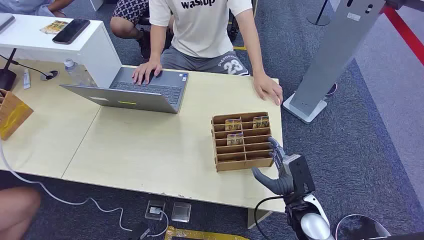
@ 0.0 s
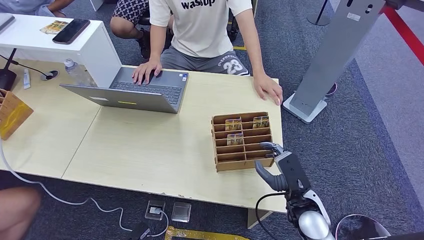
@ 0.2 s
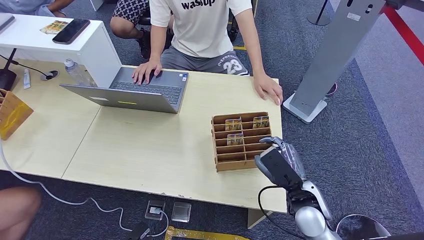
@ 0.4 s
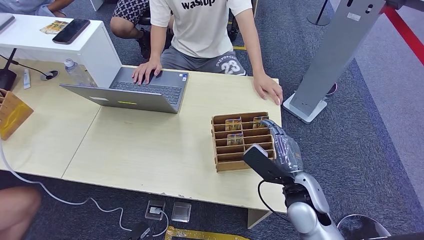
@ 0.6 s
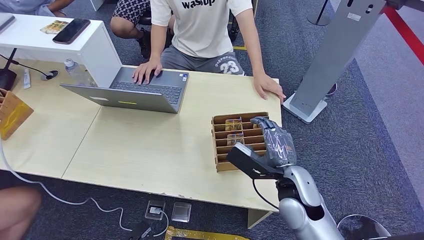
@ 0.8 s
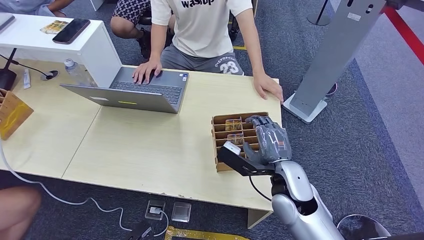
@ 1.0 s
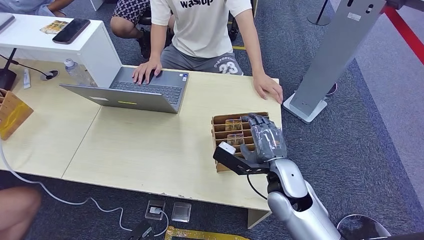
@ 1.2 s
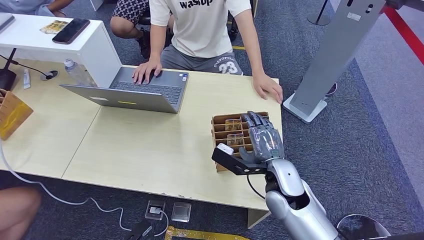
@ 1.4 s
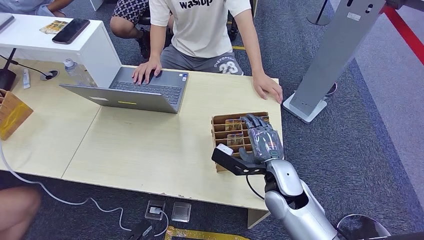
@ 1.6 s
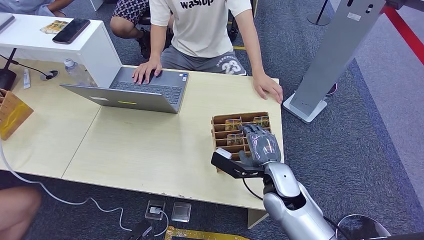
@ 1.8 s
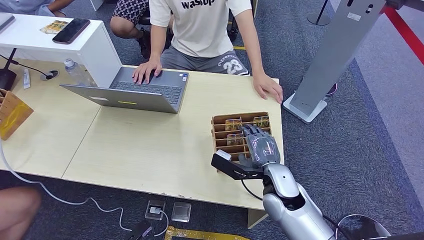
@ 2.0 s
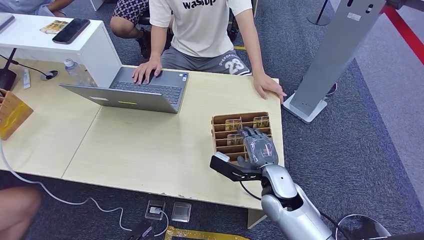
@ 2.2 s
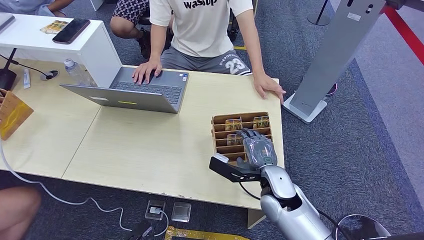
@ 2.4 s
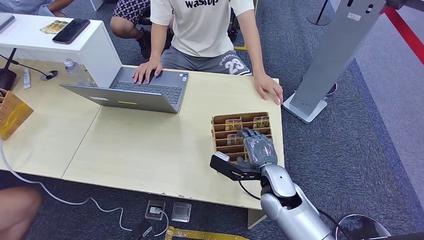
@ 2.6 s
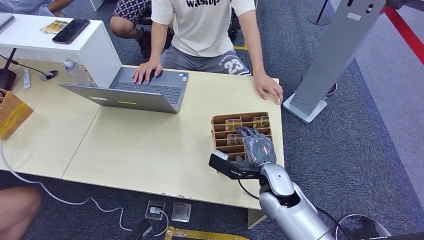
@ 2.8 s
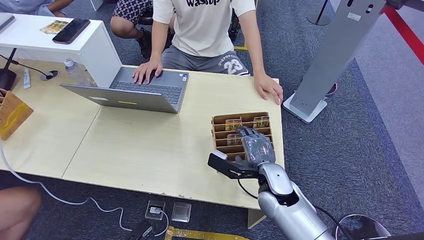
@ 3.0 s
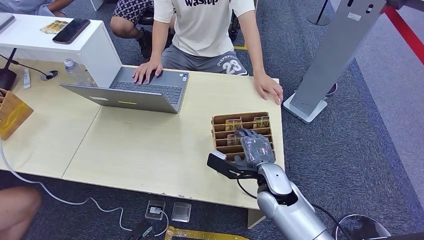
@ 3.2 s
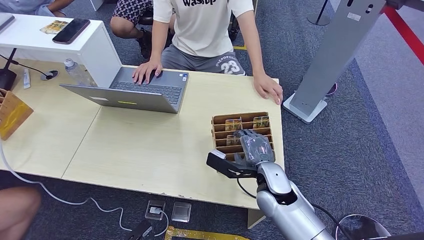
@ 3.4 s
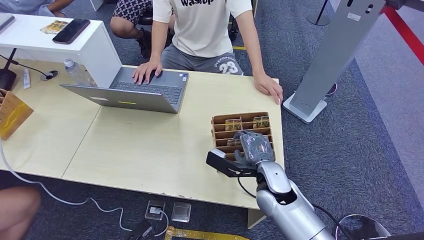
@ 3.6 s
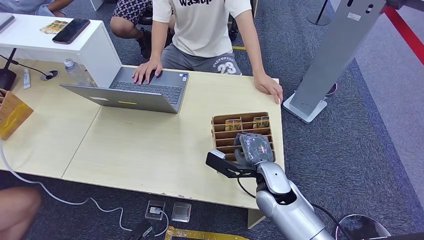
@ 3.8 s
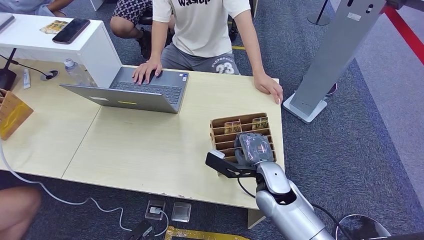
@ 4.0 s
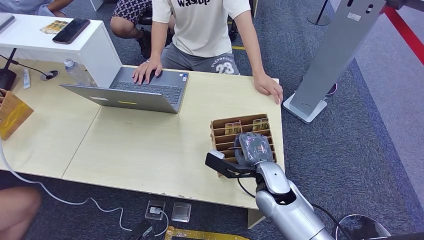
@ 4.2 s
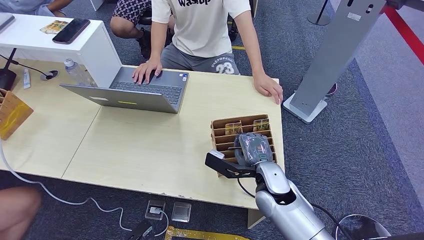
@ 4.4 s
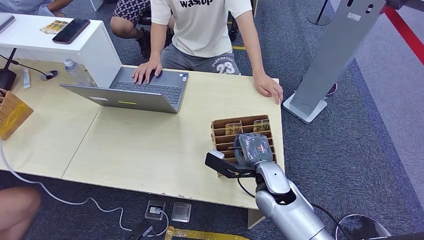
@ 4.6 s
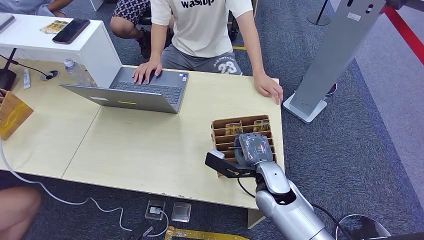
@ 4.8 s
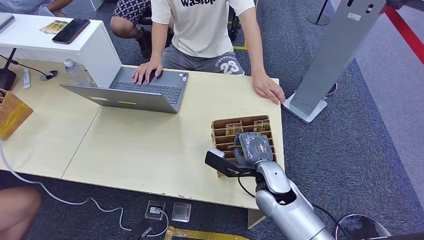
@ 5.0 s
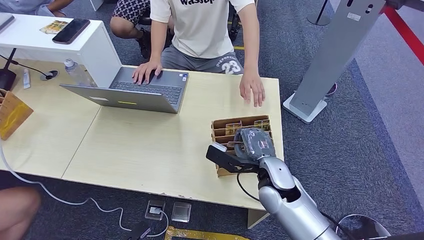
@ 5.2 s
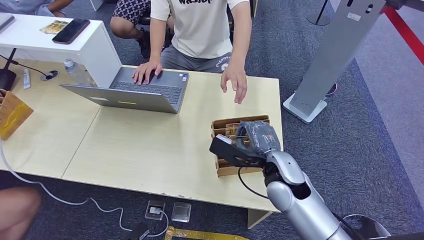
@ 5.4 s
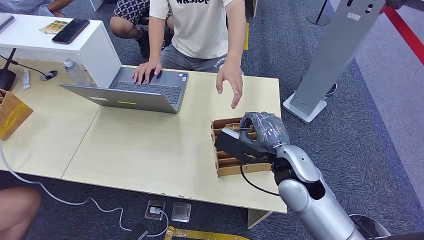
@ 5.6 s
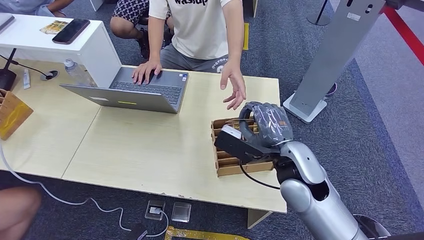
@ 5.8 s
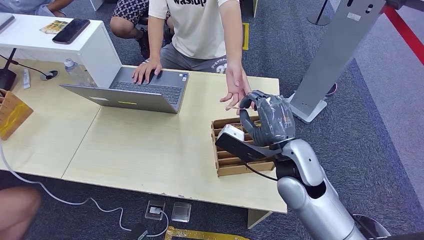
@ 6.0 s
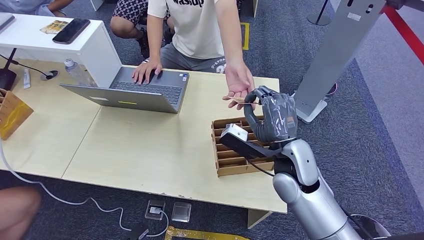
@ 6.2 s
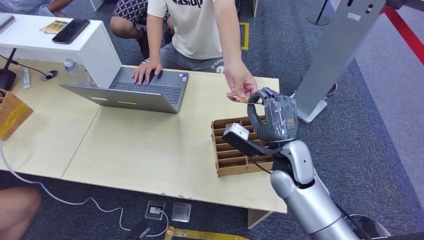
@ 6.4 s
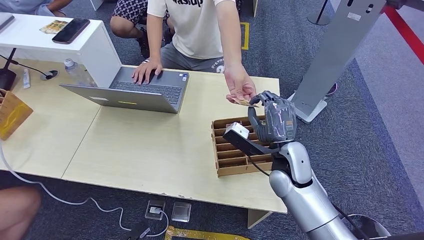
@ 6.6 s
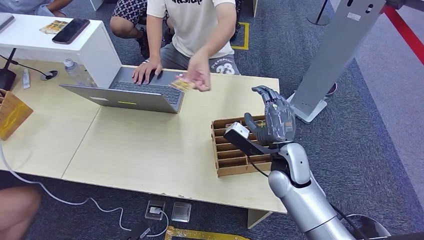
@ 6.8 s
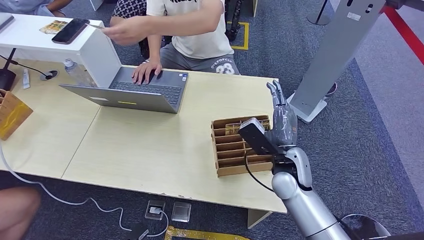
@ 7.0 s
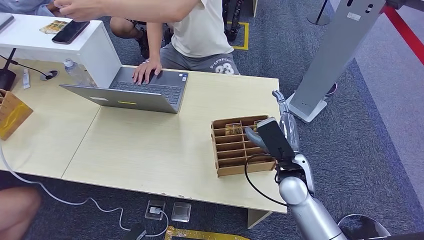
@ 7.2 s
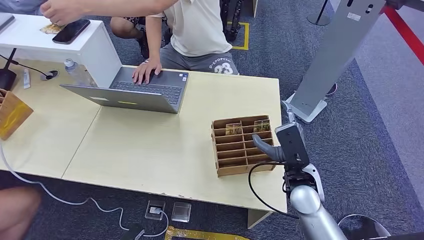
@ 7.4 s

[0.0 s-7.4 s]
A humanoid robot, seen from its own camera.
Step, 0.0 to 5.0 s: Pick up the key card from the card box.
Step, 5.4 to 7.2 s: Hand the key card to the target.
1.4 to 3.0 s: The hands make only small movements.
3.0 to 4.4 s: Neither hand changes place.
4.4 to 6.0 s: The right hand is displaced upward by some 10 cm.
6.0 to 7.4 s: The right hand heads downward, covering approximately 10 cm.

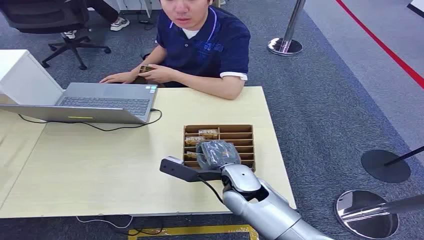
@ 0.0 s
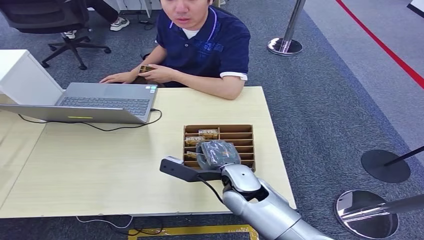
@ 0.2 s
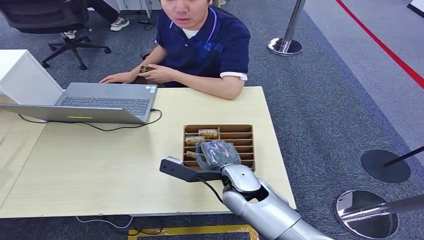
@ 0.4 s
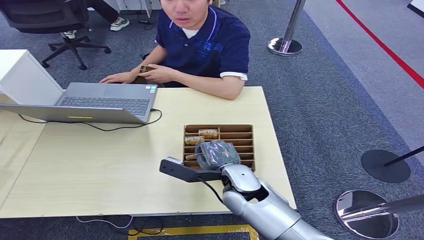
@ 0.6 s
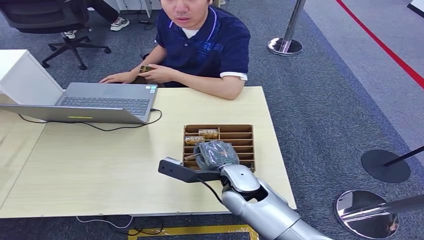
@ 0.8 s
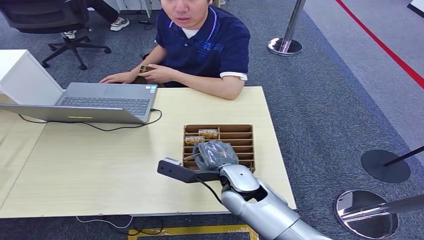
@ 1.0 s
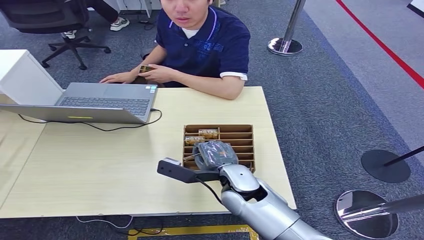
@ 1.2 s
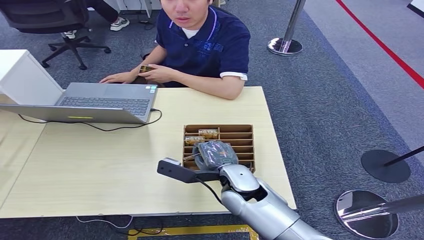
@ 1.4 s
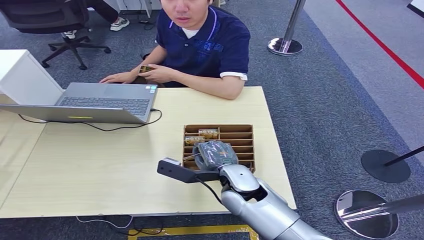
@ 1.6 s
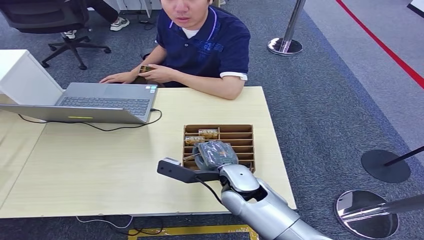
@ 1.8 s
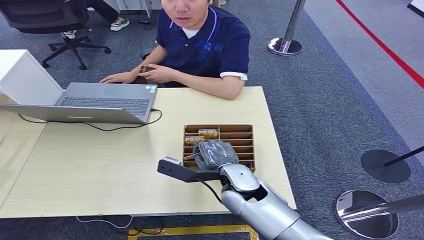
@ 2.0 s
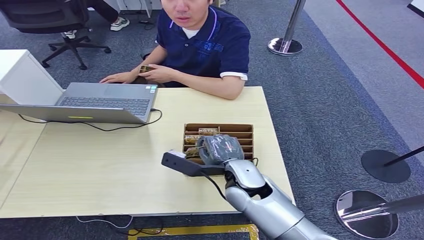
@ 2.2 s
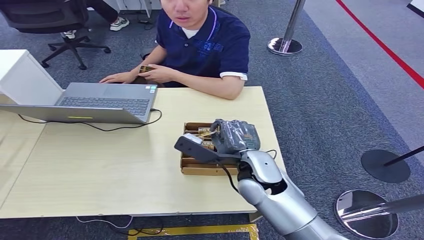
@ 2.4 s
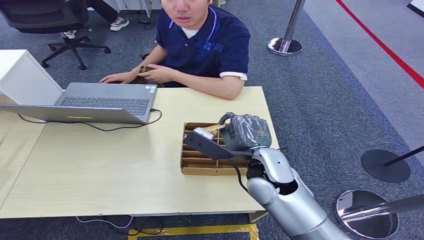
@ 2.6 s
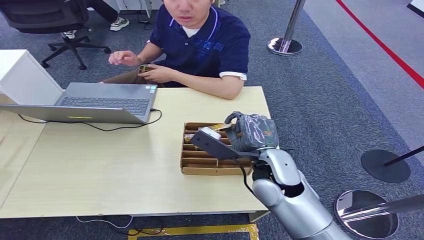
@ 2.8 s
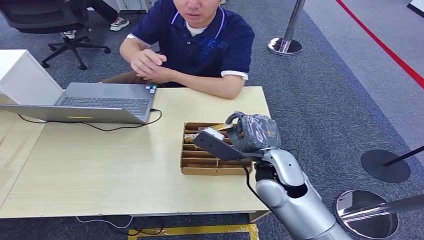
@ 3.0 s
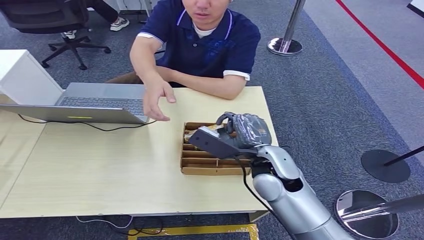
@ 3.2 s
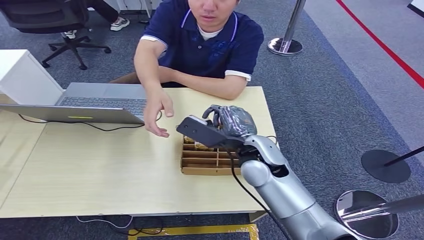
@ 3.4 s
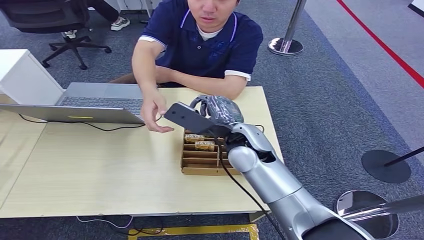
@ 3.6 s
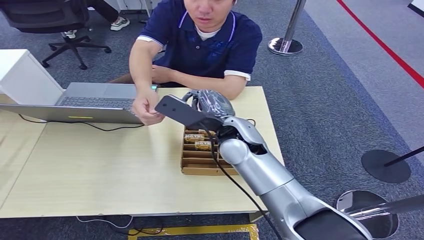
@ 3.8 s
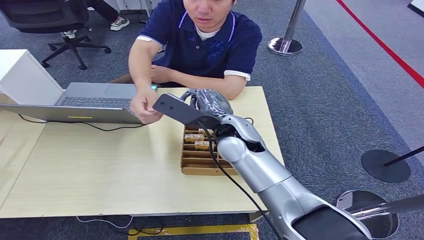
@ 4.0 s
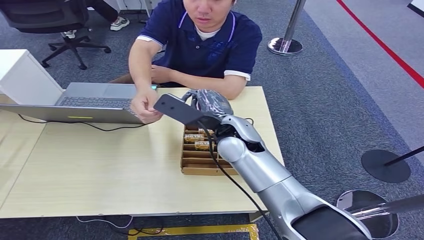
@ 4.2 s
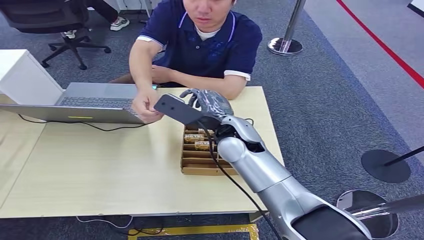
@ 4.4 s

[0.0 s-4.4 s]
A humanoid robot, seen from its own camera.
Step, 0.0 to 2.6 s: Pick up the key card from the card box.
Step, 2.8 to 4.2 s: Hand the key card to the target.
1.4 to 3.0 s: The right hand shifts approximately 10 cm upward and to the right.
3.0 to 4.4 s: The right hand heads forward and to the left, covering roughly 10 cm.
